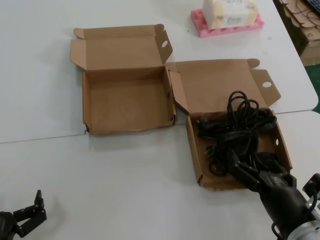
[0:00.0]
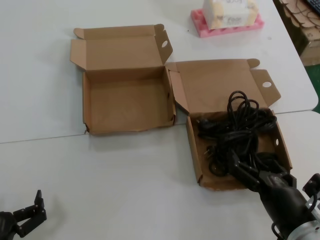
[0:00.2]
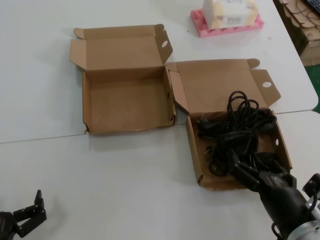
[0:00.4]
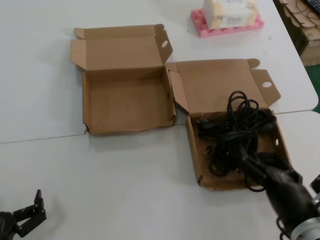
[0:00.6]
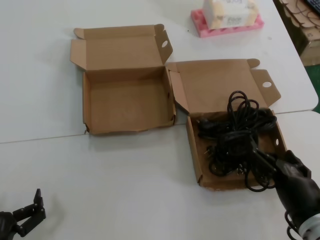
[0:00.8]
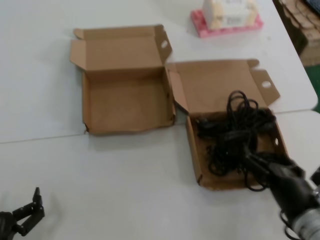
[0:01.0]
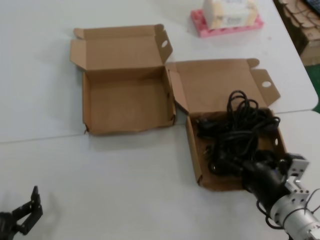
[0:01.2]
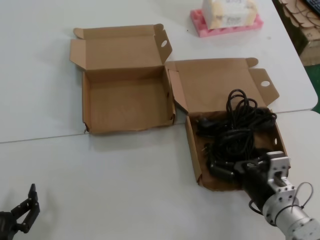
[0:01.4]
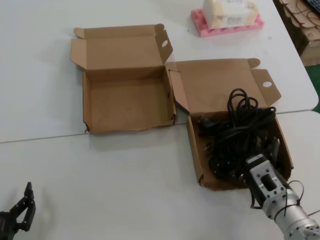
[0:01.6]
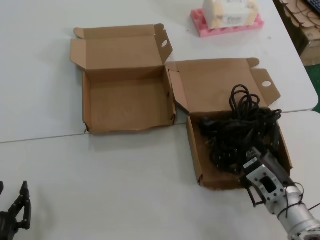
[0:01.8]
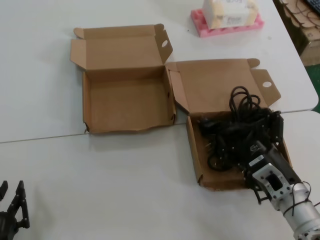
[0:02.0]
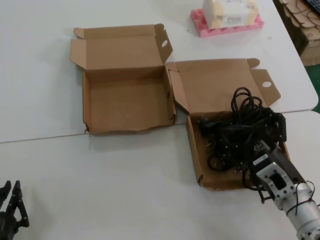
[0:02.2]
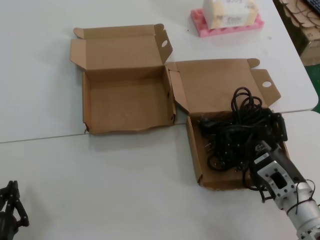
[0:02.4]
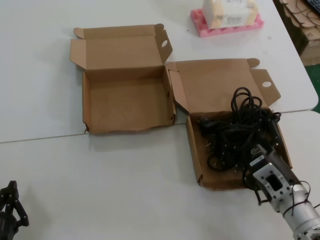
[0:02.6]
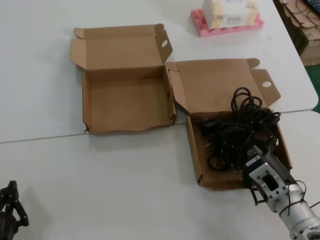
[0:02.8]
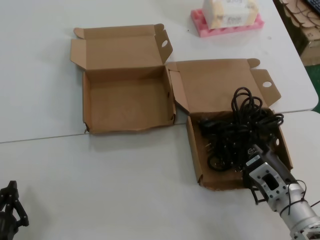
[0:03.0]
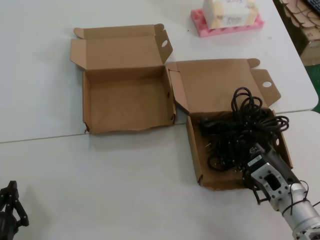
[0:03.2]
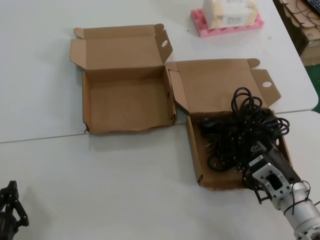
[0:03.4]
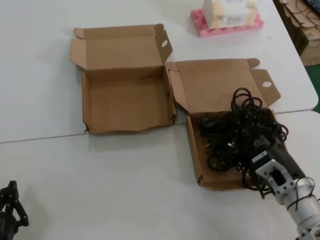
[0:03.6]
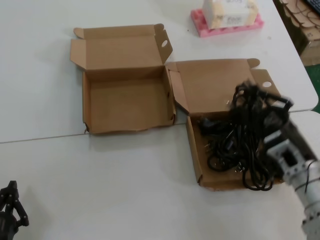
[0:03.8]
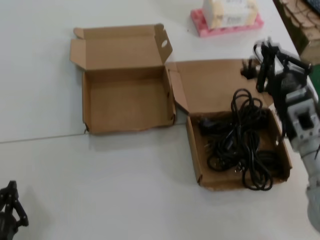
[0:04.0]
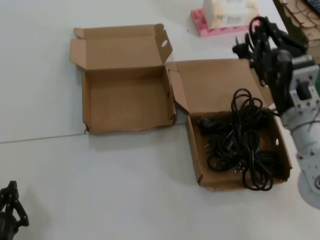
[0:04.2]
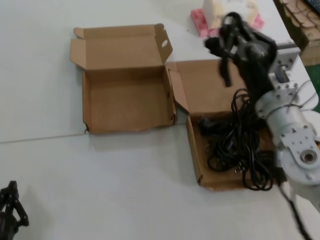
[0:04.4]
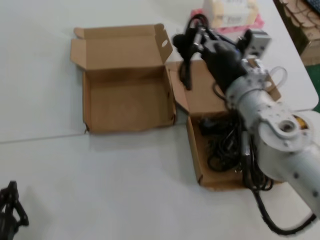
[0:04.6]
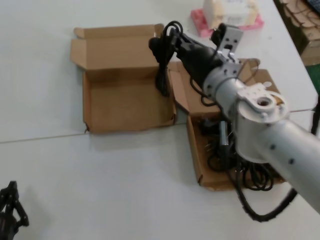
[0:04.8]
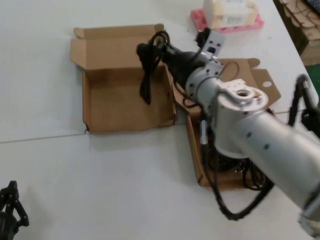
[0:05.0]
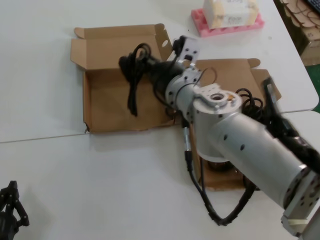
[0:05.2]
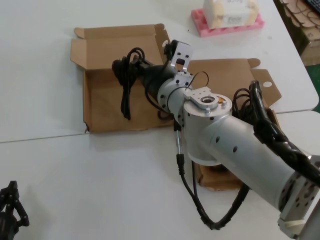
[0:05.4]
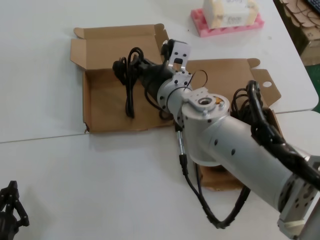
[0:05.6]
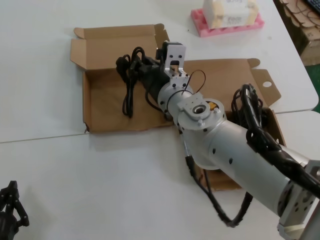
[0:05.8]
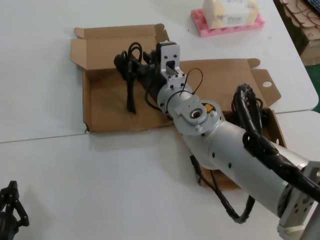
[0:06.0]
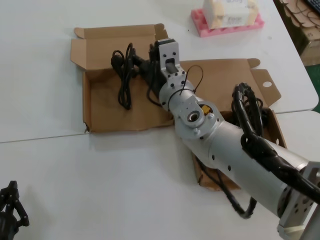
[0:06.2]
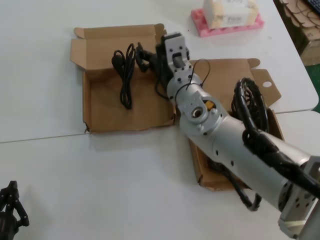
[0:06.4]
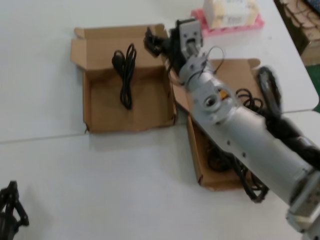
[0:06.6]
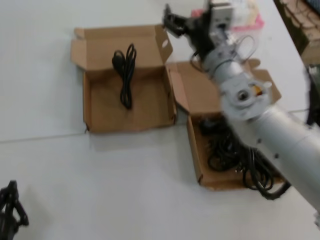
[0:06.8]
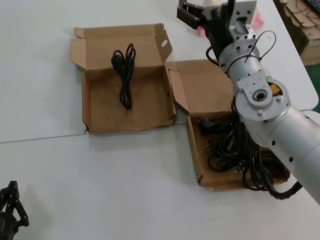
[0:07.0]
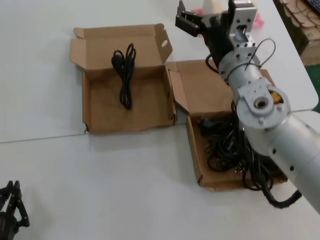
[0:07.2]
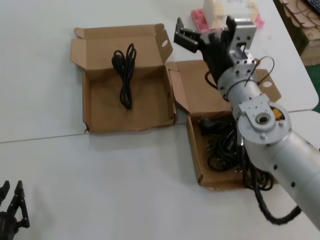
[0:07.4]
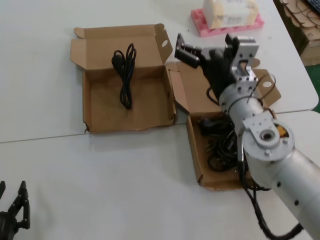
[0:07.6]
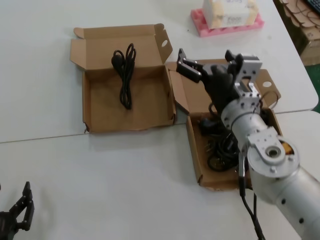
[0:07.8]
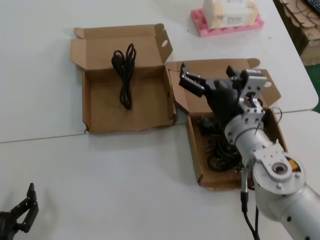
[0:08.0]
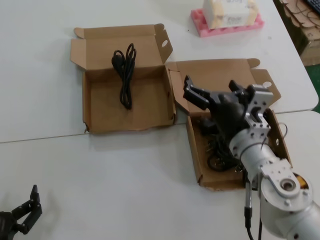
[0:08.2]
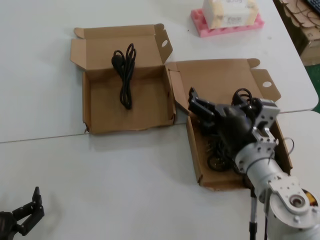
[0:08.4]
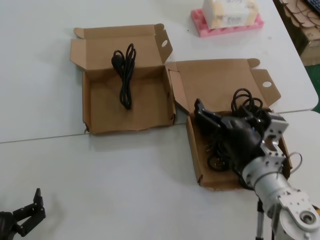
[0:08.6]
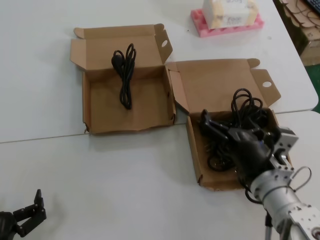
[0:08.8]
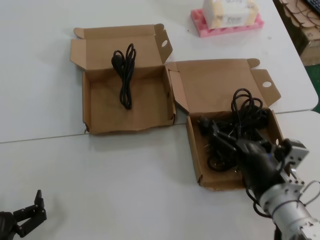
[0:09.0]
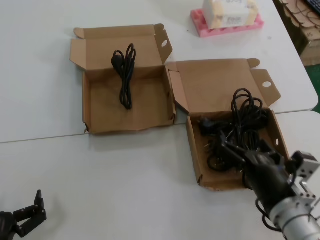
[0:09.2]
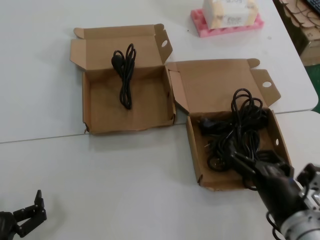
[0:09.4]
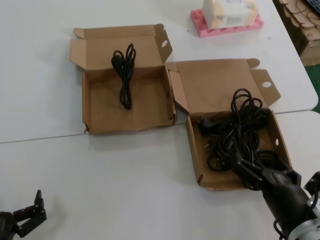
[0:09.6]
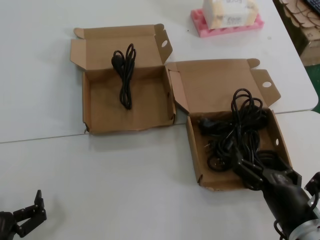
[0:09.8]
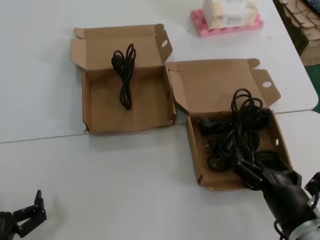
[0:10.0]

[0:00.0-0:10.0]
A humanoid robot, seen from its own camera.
Task of the whole recording: Pick up the power cord from the box containing it and place it in another box.
Step, 0:00.0 to 0:02.2: Grasp the data cable.
Step, 0:02.4 to 0:06.2: Place the data cable in the another box.
0:00.0 to 0:01.4: The right hand shifts some 10 cm forward.
0:02.8 to 0:04.2: The right hand travels upward by roughly 15 cm.
0:04.2 to 0:05.8: The right hand heads to the left and forward, covering about 25 cm.
0:05.8 to 0:07.2: The right hand is displaced to the right by some 10 cm.
0:07.2 to 0:08.6: The right hand shifts roughly 20 cm downward and backward.
0:08.6 to 0:10.0: The right hand heads backward, downward and to the right, covering about 15 cm.
